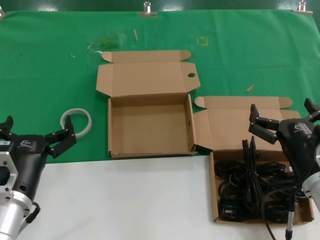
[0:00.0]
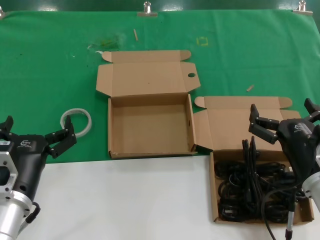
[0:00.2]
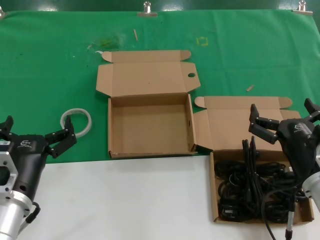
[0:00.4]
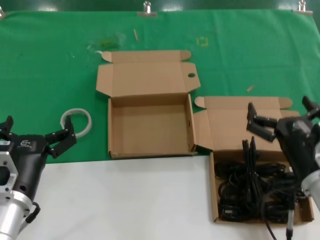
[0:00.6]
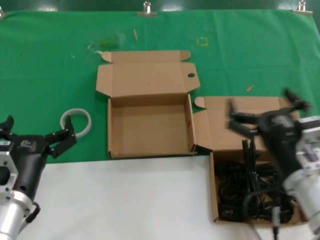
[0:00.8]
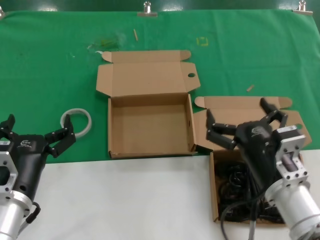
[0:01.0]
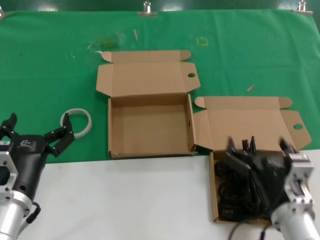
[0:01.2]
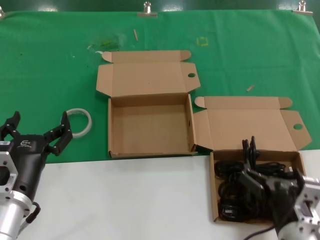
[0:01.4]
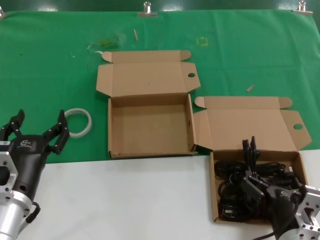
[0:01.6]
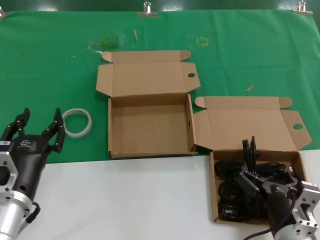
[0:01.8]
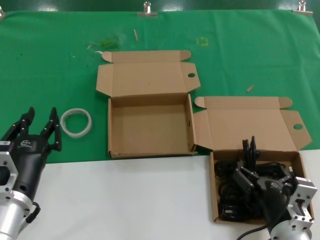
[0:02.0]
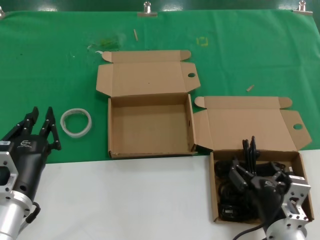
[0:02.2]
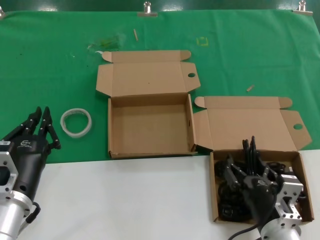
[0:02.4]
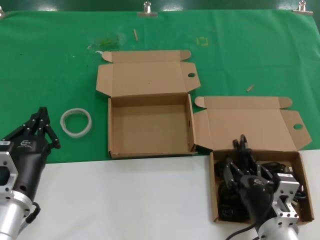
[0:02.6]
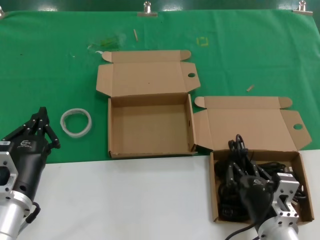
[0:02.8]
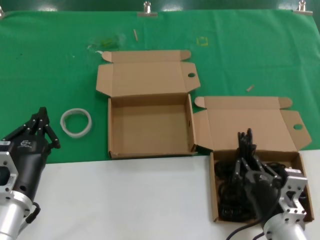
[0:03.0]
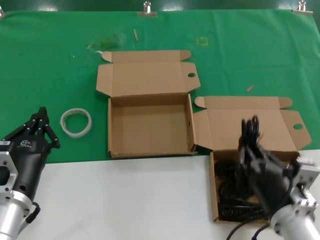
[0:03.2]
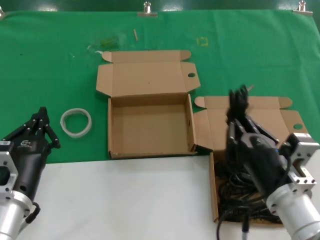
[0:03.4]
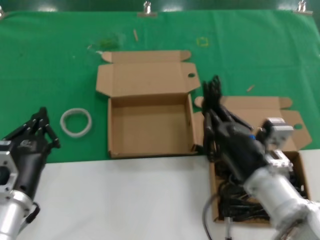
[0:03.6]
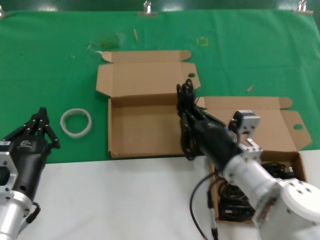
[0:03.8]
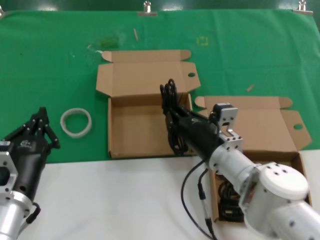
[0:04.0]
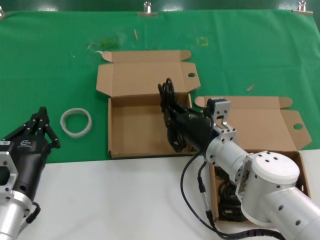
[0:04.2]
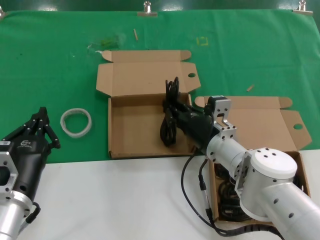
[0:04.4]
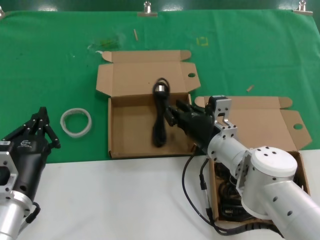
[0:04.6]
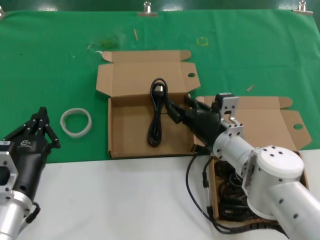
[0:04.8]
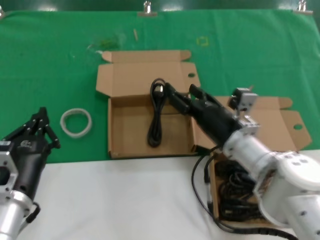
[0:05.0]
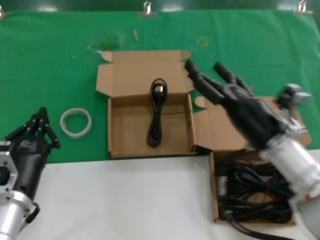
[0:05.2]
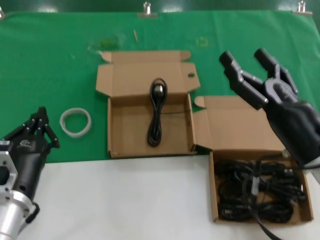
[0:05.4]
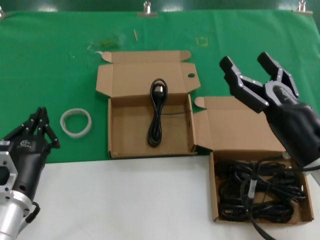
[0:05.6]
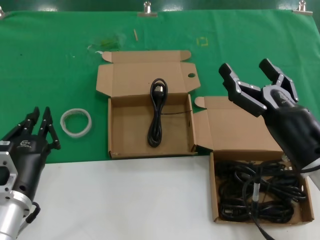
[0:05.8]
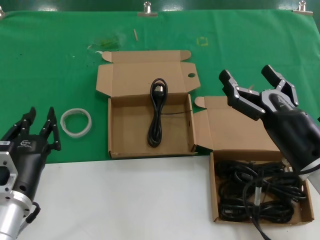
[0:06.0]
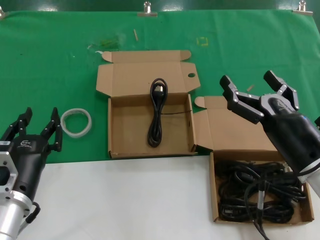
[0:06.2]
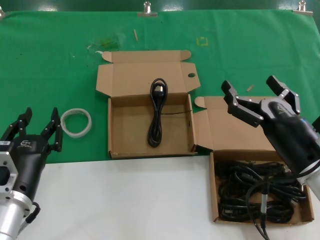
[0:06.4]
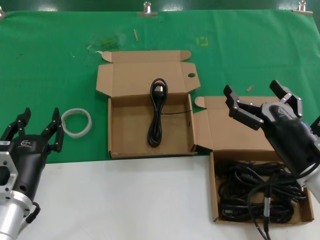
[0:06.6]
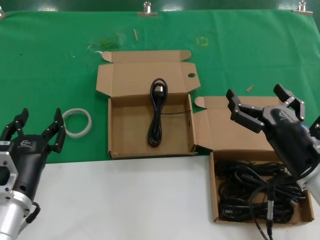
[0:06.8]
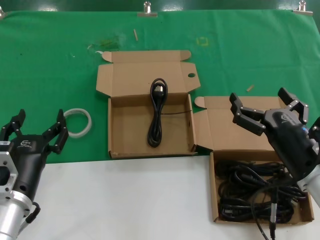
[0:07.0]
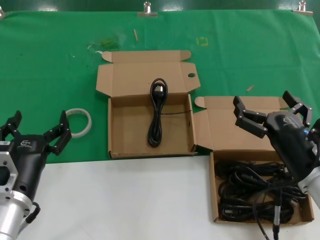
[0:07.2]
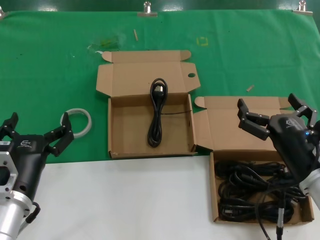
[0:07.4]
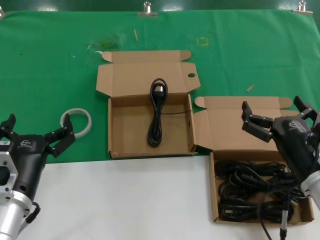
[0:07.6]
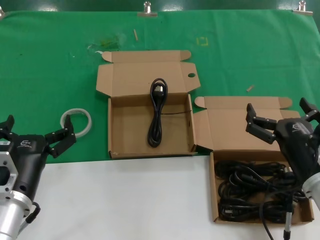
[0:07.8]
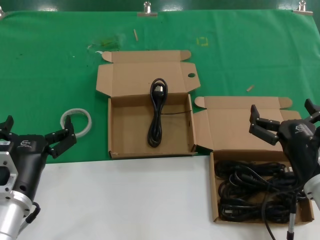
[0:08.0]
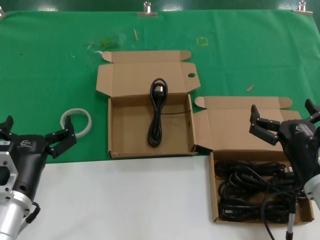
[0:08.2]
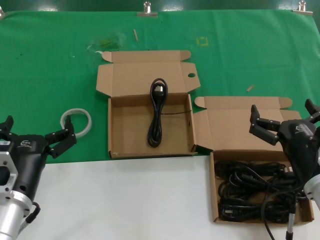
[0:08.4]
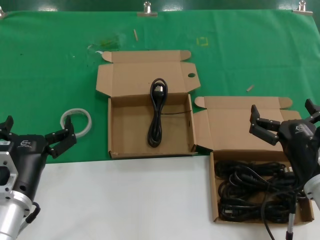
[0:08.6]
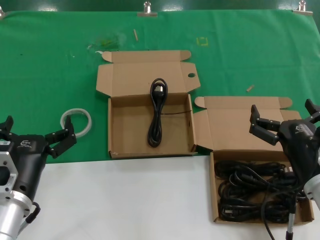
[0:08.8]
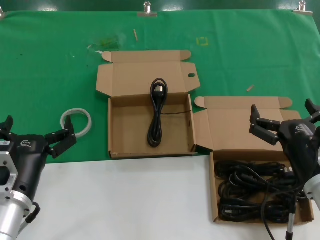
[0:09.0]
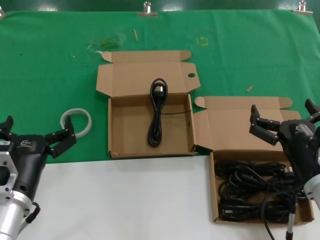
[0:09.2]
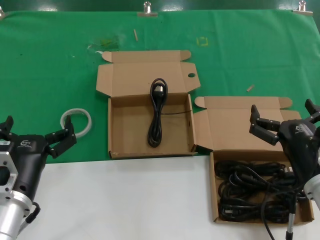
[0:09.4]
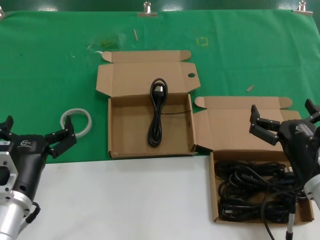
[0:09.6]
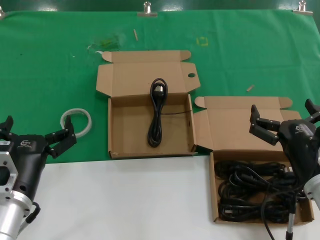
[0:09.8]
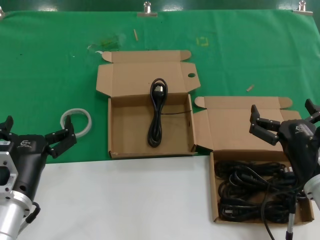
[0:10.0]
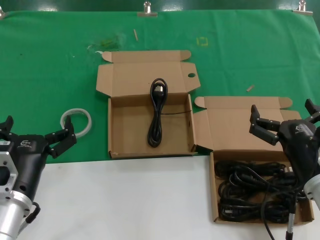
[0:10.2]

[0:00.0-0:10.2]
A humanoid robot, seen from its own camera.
Task of the whole recording: Pick up the power cord from the box containing it and place it in another box.
Step, 0:00.0 to 0:03.0: Grasp the data cable.
Step, 0:03.2 to 0:04.8: Place the data cable in the another box.
0:00.0 to 0:01.4: The right hand heads downward, covering about 5 cm.
0:01.4 to 0:03.0: The hands stay close to where they were, moving slightly.
0:03.0 to 0:04.4: The right hand goes some 15 cm forward.
0:04.4 to 0:05.8: The right hand goes about 20 cm backward, to the right and upward.
0:07.2 to 0:08.8: The hands move only a little.
0:08.8 to 0:10.2: The two hands keep their place.
